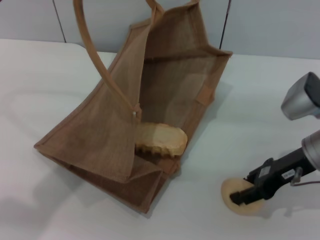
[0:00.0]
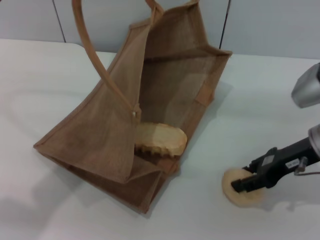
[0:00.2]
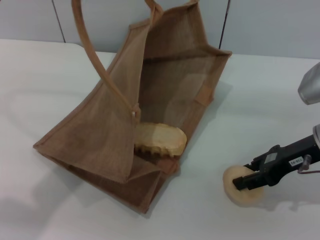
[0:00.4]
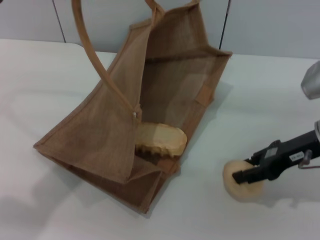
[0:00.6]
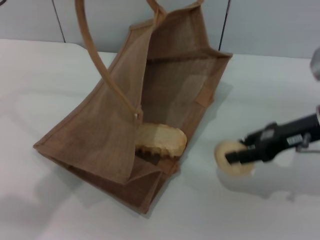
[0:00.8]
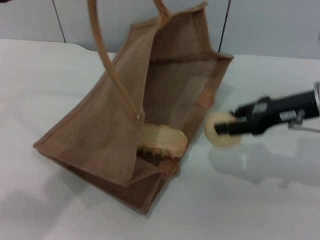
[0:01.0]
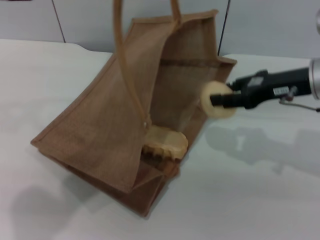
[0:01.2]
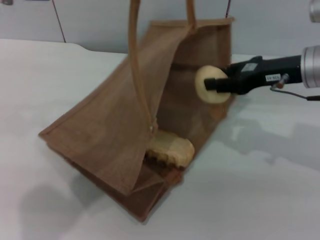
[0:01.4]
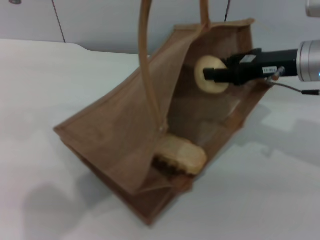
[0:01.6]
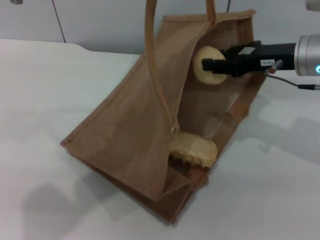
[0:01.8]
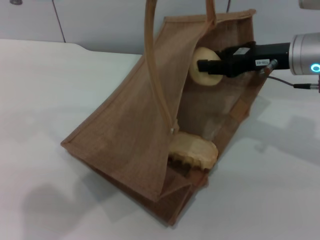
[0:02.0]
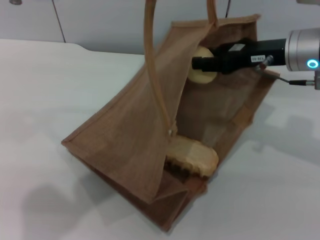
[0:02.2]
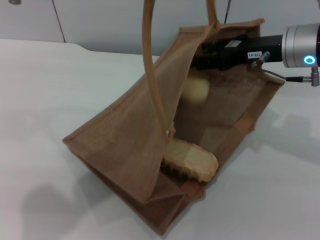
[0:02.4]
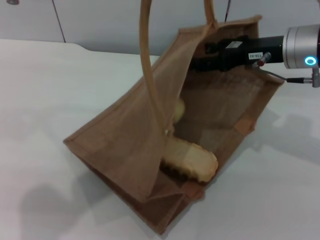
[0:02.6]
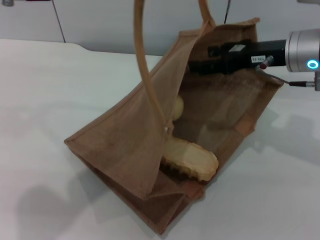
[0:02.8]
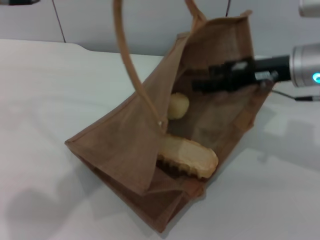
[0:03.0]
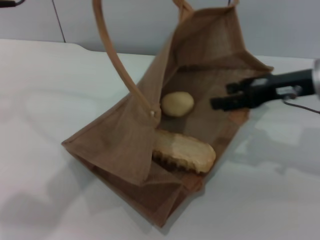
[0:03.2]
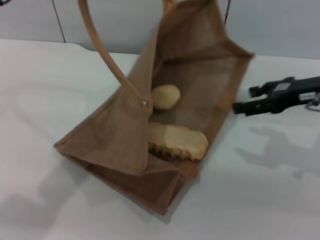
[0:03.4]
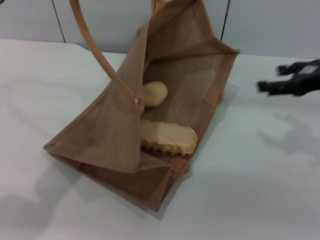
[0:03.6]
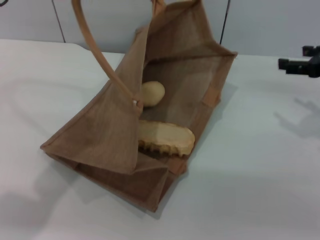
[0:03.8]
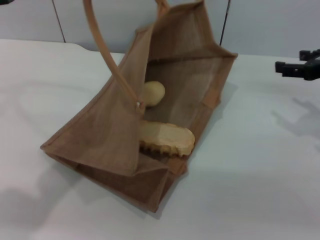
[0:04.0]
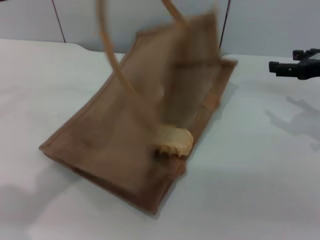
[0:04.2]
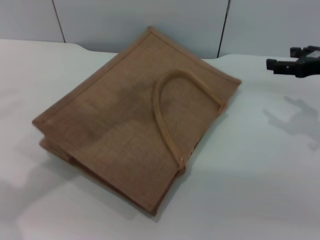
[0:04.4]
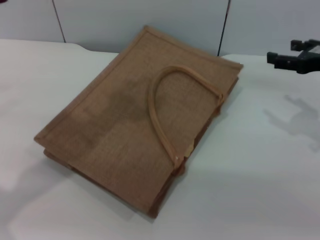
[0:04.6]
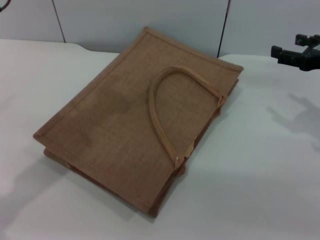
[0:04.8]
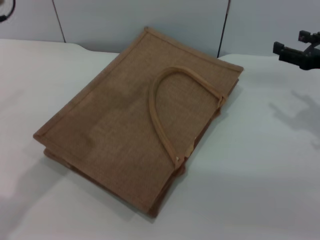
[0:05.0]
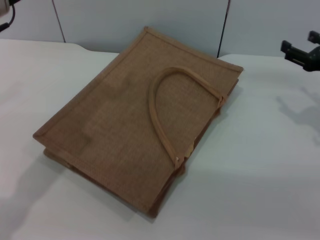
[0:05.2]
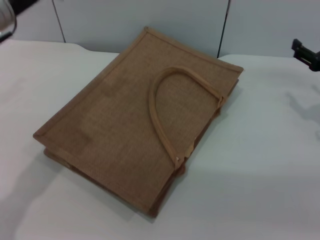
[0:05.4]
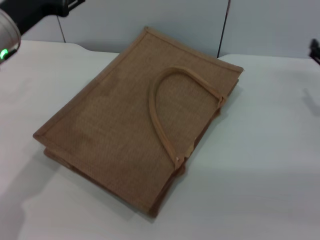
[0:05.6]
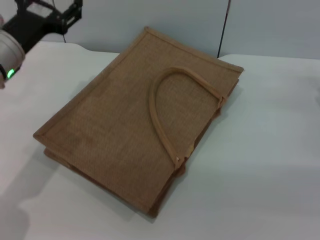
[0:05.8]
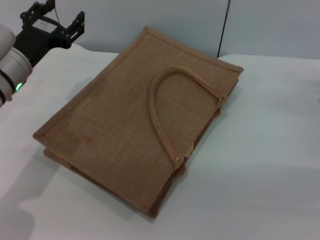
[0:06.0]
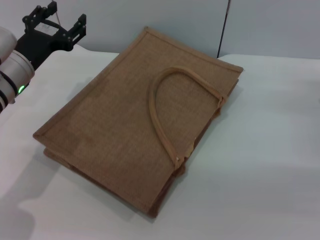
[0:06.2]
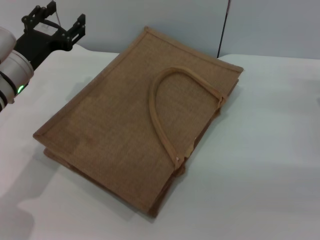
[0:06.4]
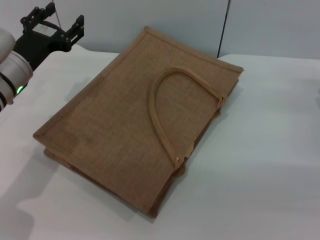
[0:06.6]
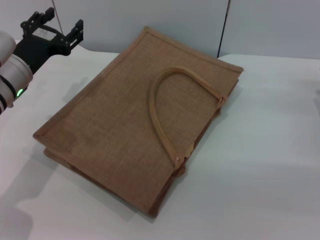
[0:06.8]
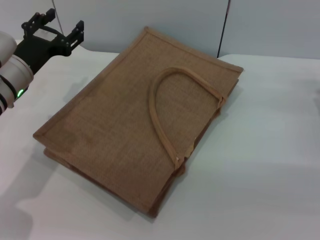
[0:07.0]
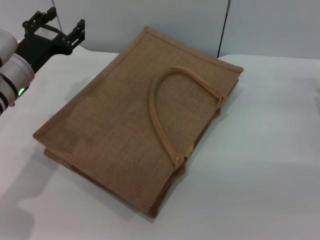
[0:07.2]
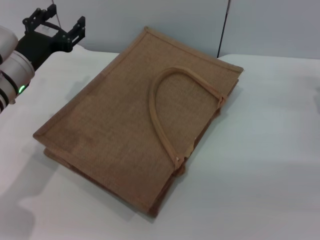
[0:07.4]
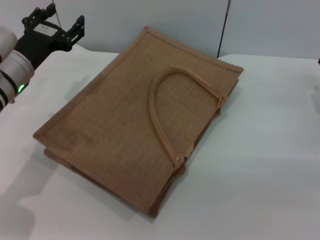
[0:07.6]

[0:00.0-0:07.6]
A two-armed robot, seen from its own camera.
Task of the whole recording: pick up the bread and egg yolk pastry from the table and place it in the brown handbag.
Step, 0:01.2 to 0:03.8: Place the egg yolk pastry into the woven bag with the right gripper.
Step, 0:04.0 to 0:05.2: Lower the woven bag with the left gripper to close it.
0:00.0 to 0:01.6: The left gripper shifts some 5 cm to the right, while the right gripper moves upward and forward, approximately 10 cm.
0:01.6 to 0:03.0: The right gripper opens its fingers.
0:03.0 to 0:04.6: The right gripper shifts some 10 cm to the right; the left gripper shifts some 5 cm to the left, and opens its fingers.
0:04.6 to 0:06.0: The left gripper moves downward, some 20 cm, and opens. Meanwhile the right gripper is displaced downward by approximately 10 cm.

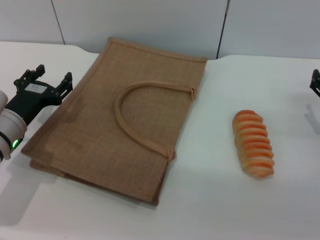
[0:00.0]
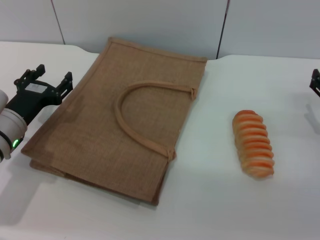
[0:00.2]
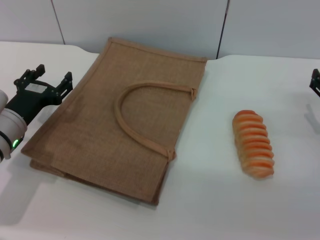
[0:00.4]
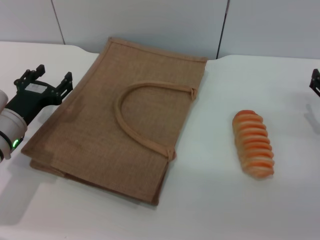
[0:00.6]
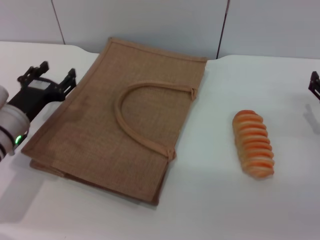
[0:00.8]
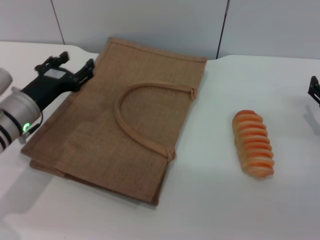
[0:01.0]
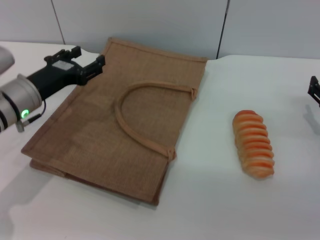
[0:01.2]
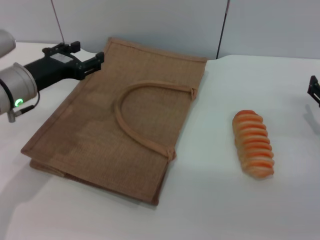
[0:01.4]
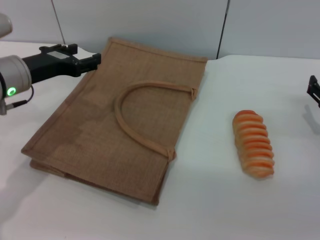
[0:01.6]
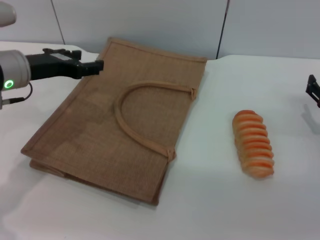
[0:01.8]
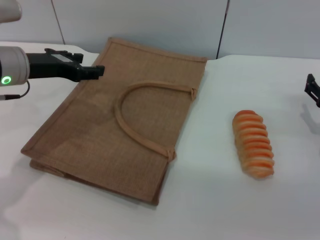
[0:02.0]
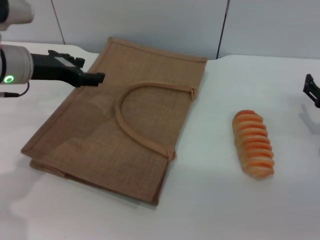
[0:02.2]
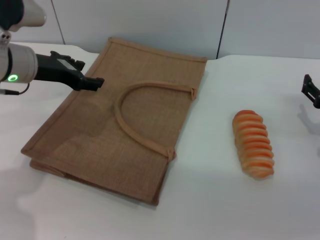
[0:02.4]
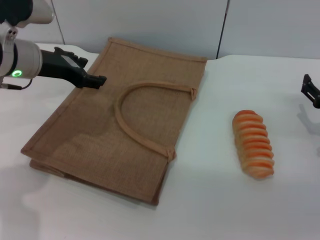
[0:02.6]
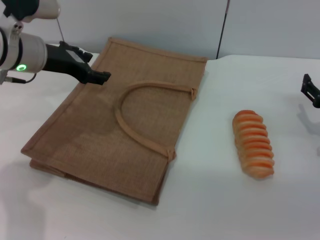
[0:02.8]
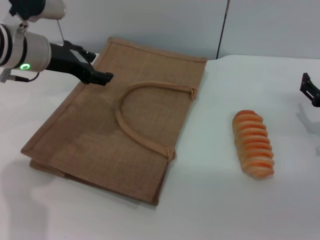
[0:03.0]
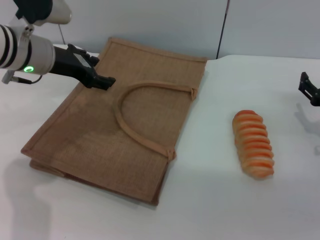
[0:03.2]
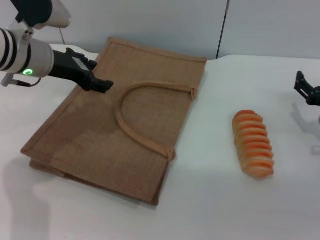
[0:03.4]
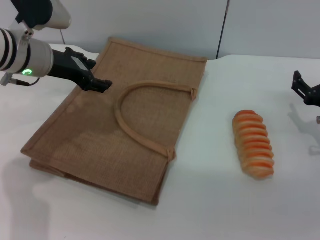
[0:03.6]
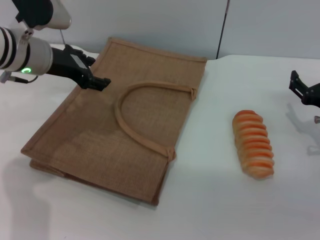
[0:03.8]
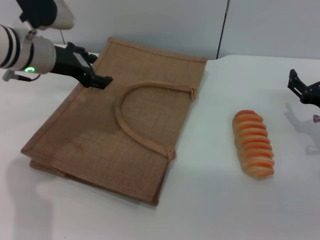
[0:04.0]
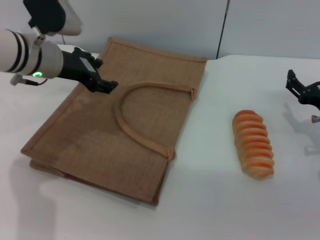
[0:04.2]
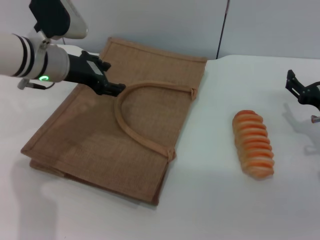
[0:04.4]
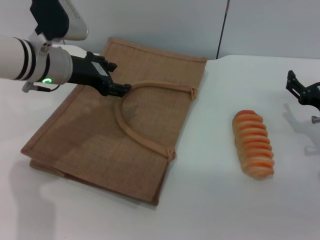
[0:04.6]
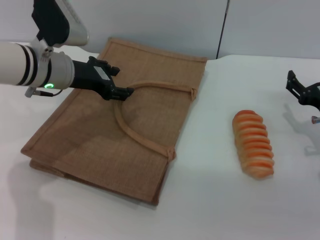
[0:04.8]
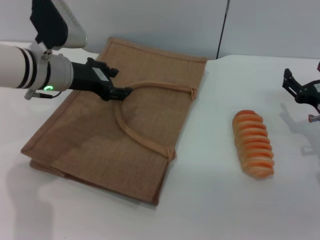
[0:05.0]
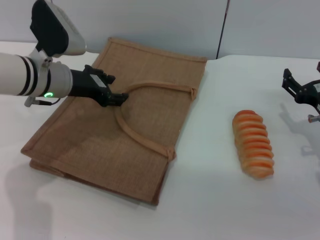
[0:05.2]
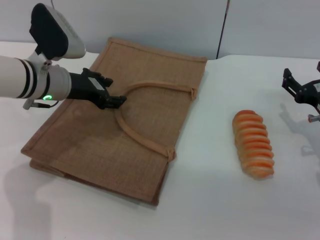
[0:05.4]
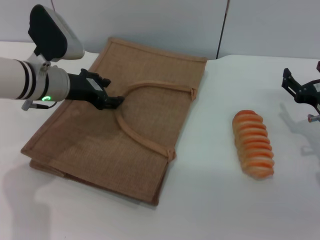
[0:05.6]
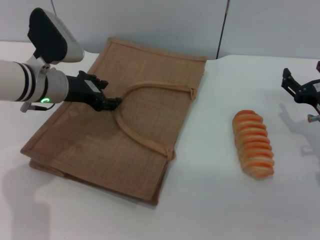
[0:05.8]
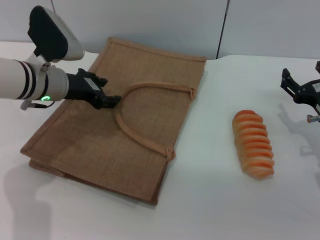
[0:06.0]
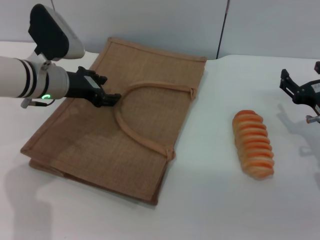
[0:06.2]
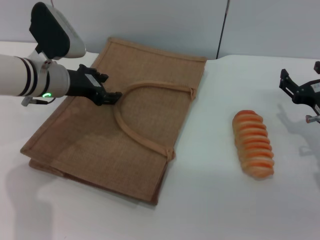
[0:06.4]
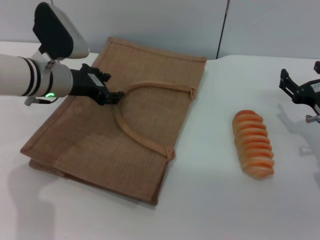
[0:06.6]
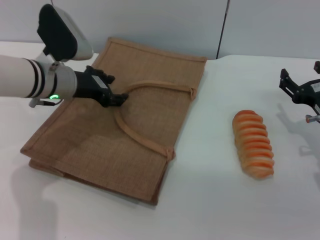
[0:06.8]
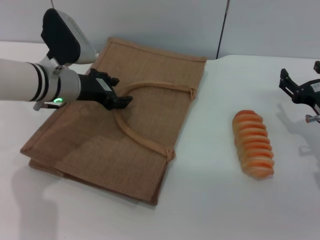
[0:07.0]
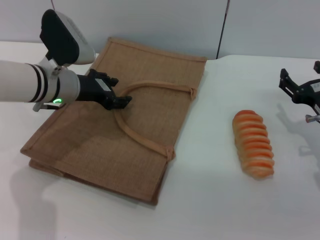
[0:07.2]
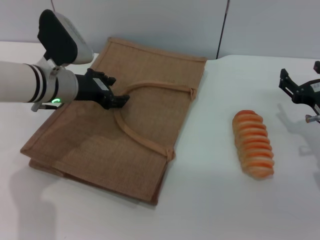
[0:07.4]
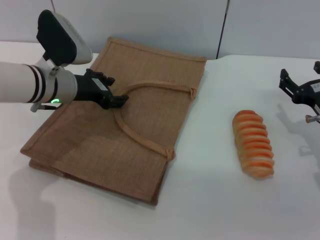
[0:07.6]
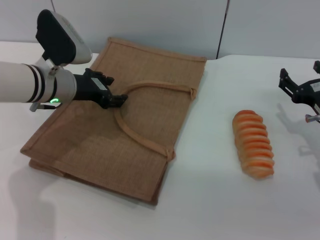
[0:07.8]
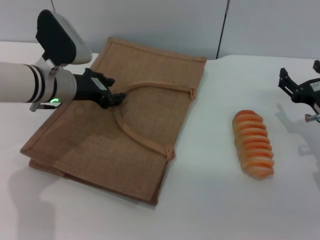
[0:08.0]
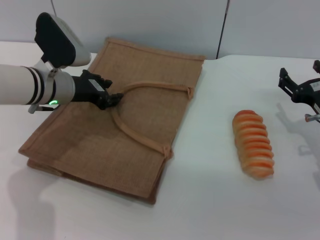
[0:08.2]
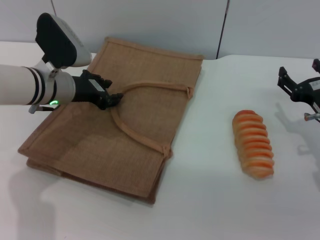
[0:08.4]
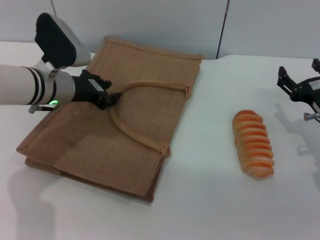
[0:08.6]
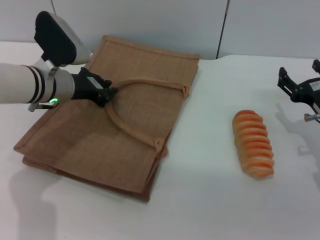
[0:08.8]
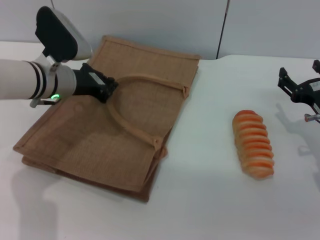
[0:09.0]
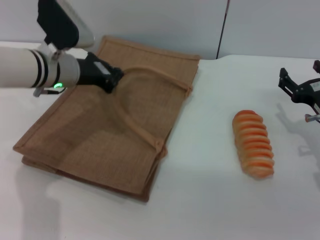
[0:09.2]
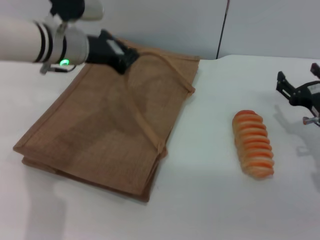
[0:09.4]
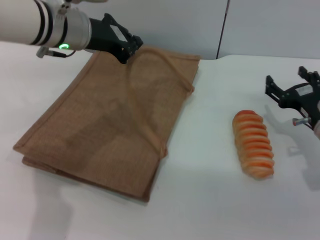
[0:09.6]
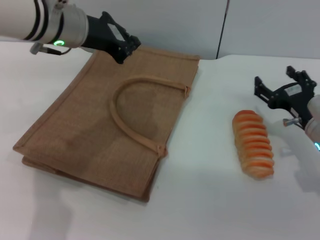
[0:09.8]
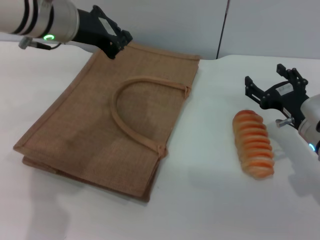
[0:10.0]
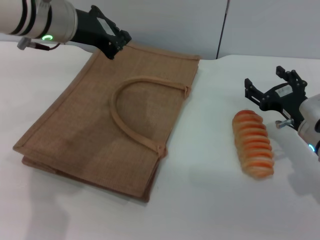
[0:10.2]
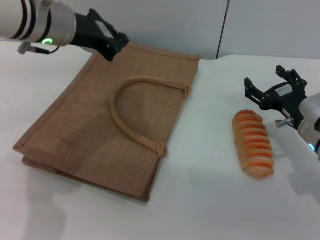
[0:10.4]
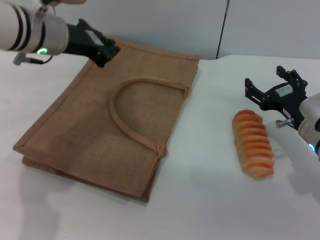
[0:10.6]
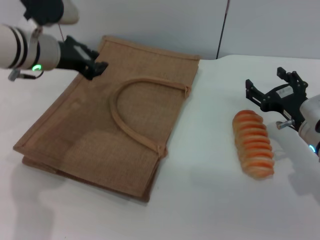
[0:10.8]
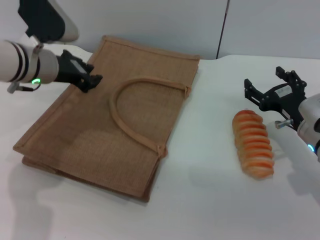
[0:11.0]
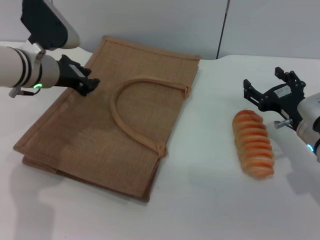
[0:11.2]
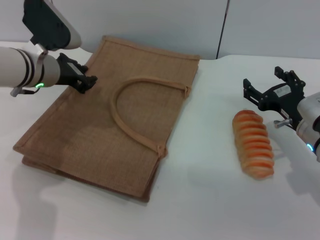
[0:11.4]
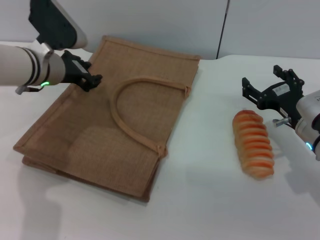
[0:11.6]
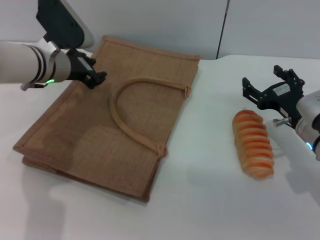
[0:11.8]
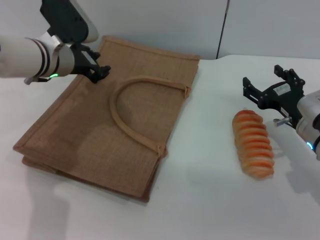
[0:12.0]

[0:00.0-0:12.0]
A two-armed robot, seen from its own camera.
Task of the whole recording: pick up the bread from the table and place it in the brown handbag.
0:00.0 to 0:01.6: The left gripper is displaced upward by some 10 cm.
0:01.6 to 0:03.0: The left gripper shifts by about 5 cm.
0:03.0 to 0:04.4: The grippers make only small movements.
0:04.4 to 0:07.6: The grippers stay close to where they were, moving slightly.
0:07.6 to 0:09.0: The left gripper closes its fingers.
0:09.0 to 0:10.4: The left gripper shifts some 10 cm upward.
0:10.4 to 0:12.0: The left gripper heads downward, covering approximately 10 cm, and opens up.

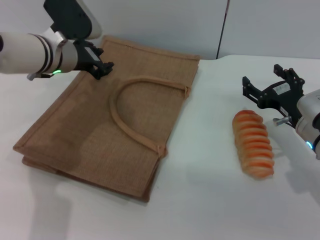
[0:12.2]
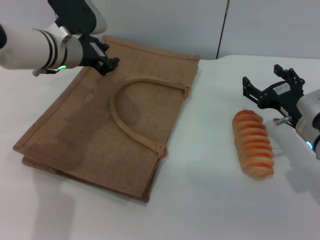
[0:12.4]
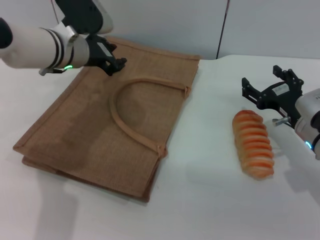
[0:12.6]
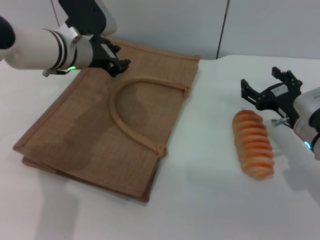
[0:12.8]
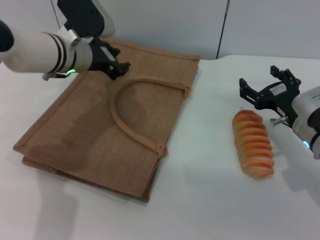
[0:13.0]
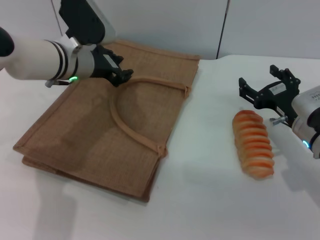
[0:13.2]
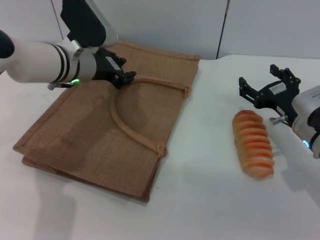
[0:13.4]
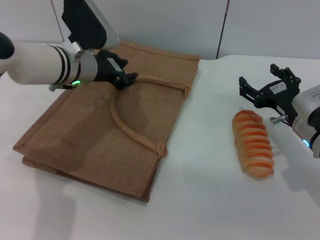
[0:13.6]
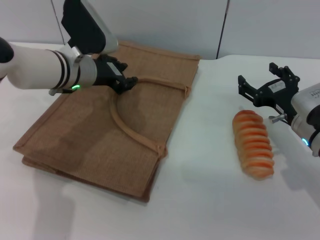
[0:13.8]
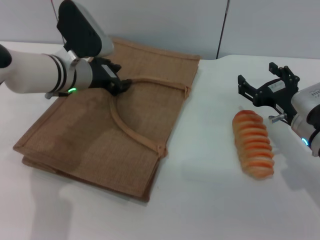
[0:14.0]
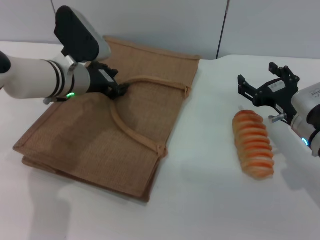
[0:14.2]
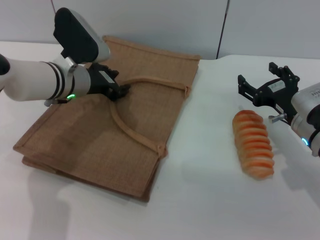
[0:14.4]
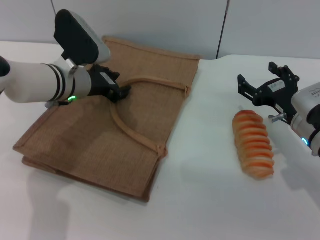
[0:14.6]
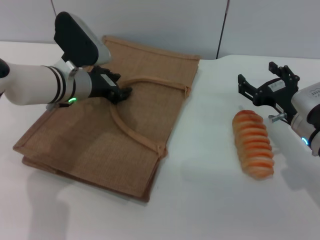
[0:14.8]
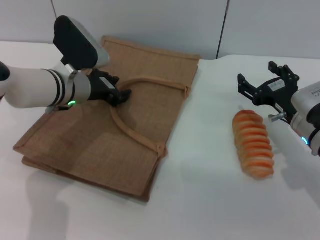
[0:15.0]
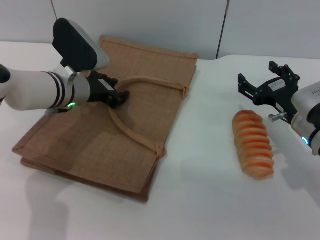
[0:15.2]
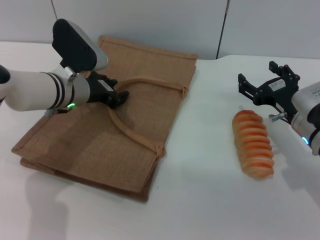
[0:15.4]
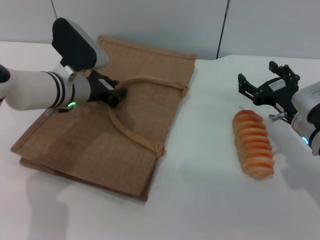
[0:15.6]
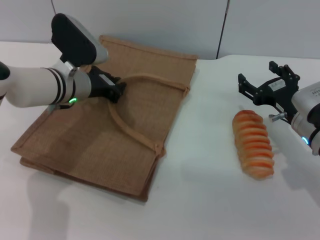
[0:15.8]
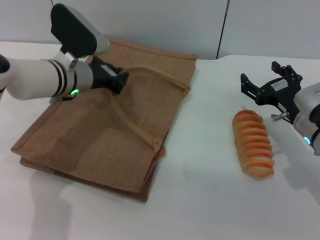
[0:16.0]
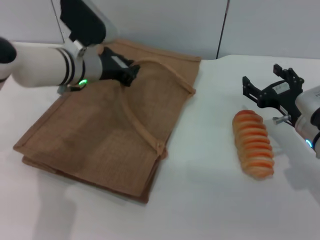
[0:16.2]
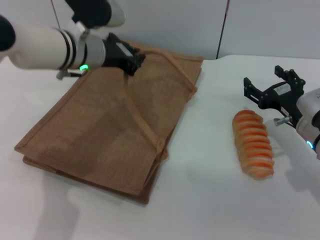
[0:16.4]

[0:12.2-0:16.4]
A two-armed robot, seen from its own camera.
Task of the whole recording: pick up the bread from the table and place it in the brown handbag.
0:12.2 to 0:15.0: The grippers make only small movements.
0:15.0 to 0:16.4: The left gripper is displaced upward by about 5 cm, and closes up.
